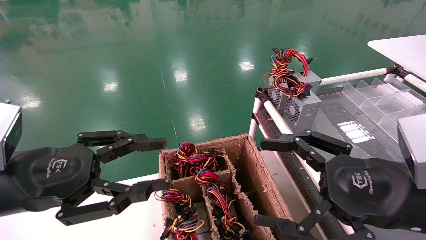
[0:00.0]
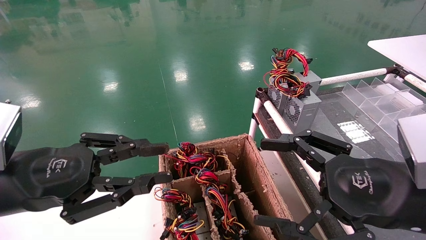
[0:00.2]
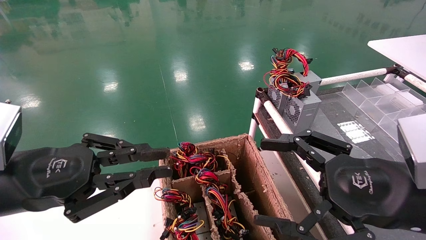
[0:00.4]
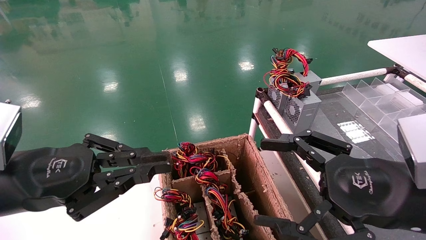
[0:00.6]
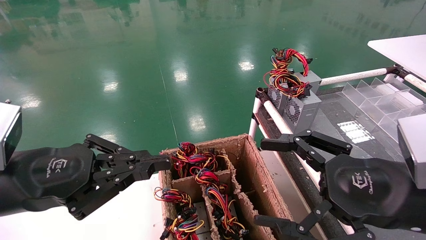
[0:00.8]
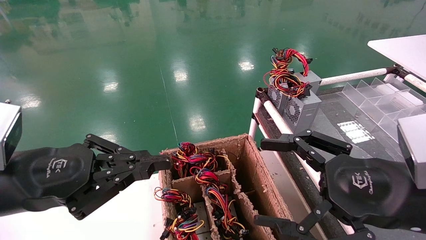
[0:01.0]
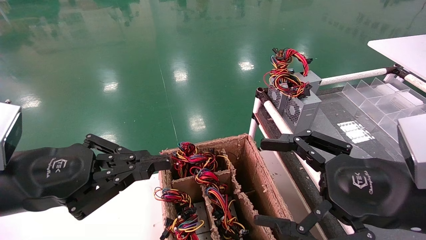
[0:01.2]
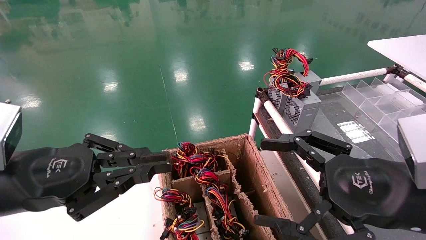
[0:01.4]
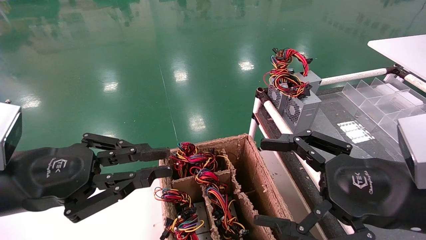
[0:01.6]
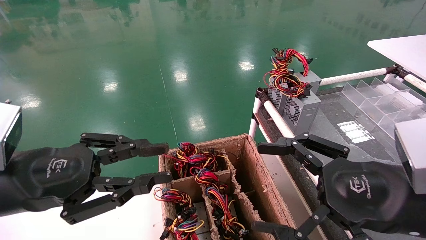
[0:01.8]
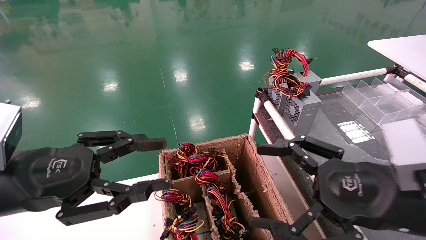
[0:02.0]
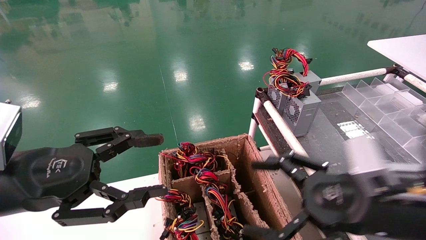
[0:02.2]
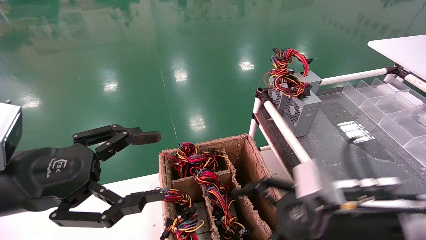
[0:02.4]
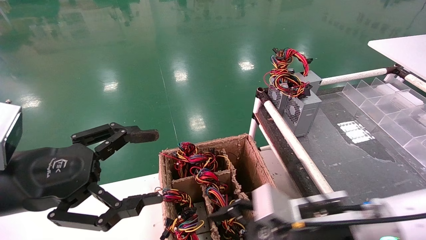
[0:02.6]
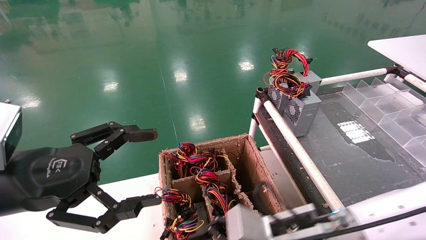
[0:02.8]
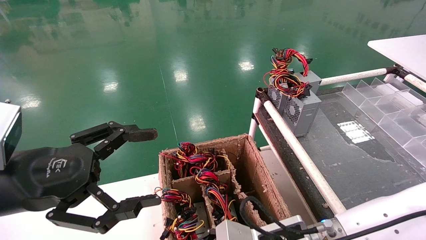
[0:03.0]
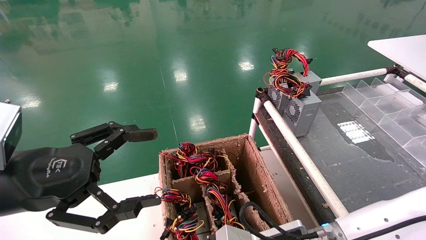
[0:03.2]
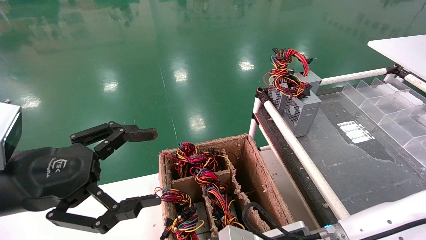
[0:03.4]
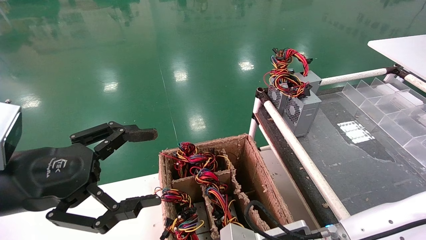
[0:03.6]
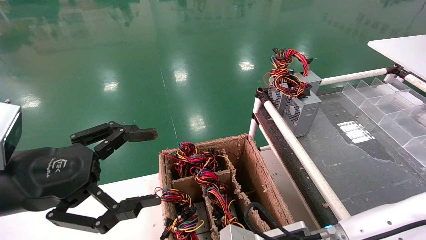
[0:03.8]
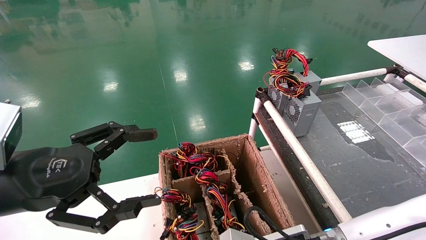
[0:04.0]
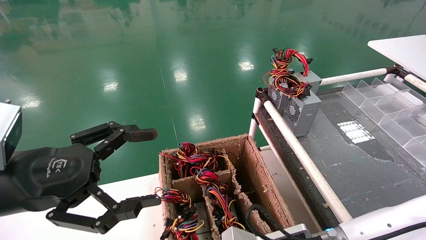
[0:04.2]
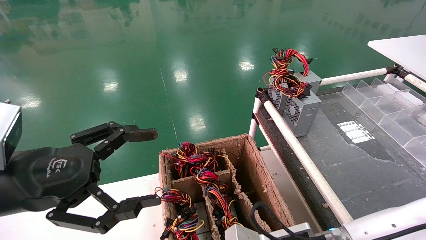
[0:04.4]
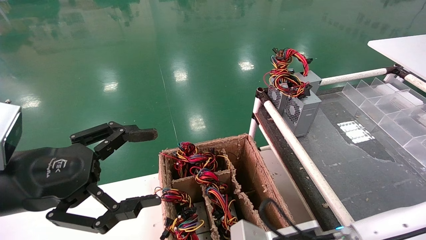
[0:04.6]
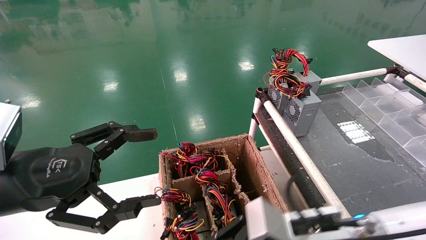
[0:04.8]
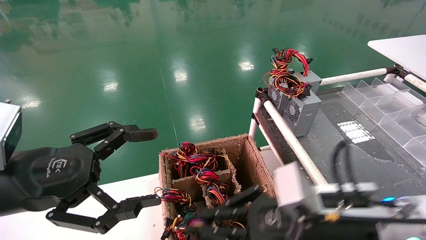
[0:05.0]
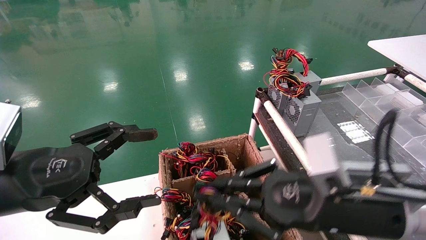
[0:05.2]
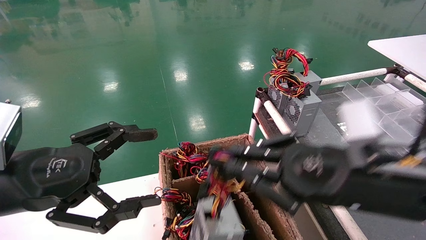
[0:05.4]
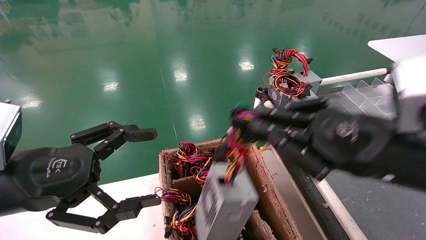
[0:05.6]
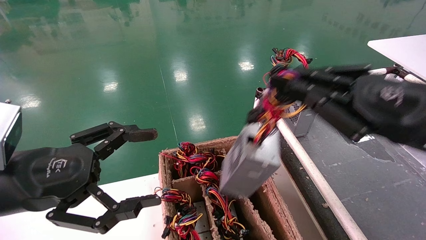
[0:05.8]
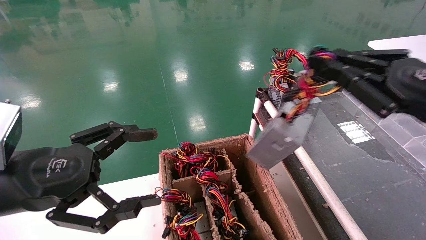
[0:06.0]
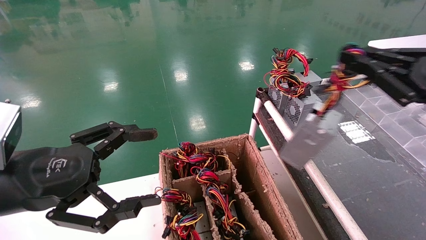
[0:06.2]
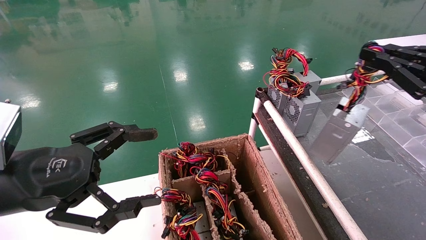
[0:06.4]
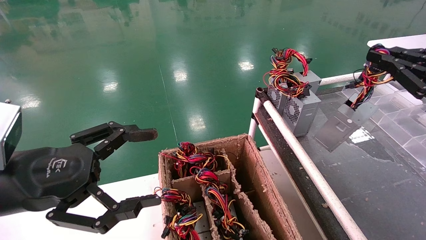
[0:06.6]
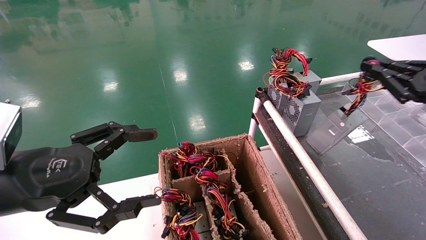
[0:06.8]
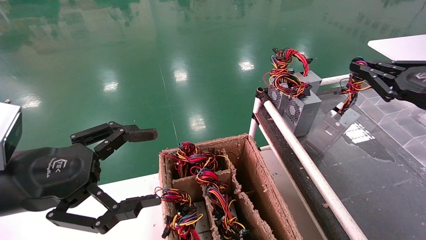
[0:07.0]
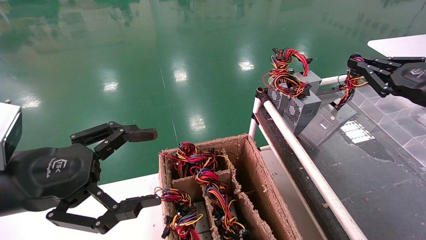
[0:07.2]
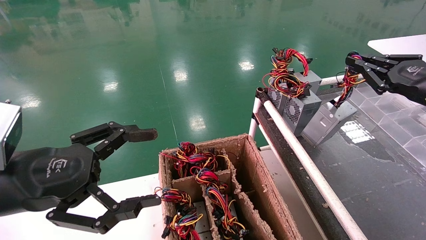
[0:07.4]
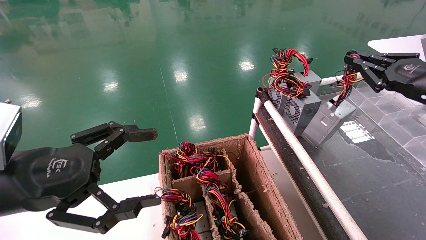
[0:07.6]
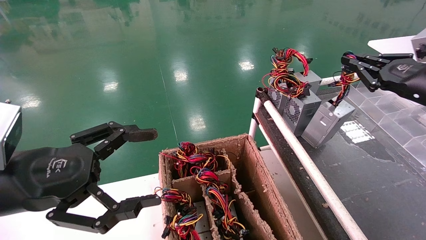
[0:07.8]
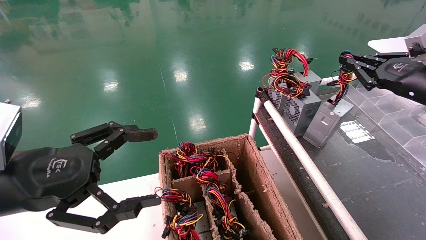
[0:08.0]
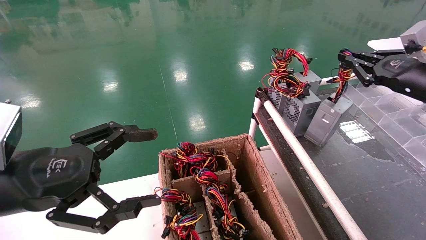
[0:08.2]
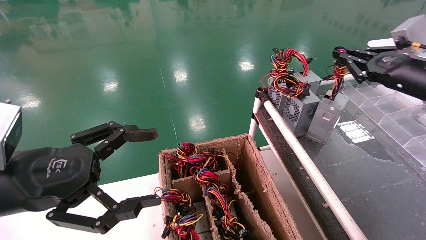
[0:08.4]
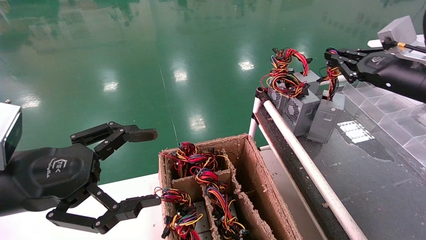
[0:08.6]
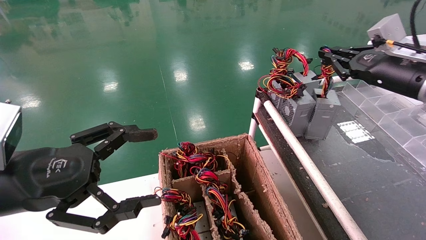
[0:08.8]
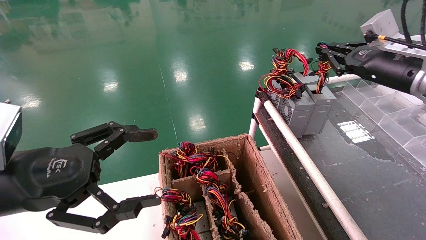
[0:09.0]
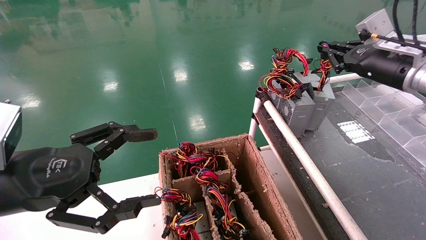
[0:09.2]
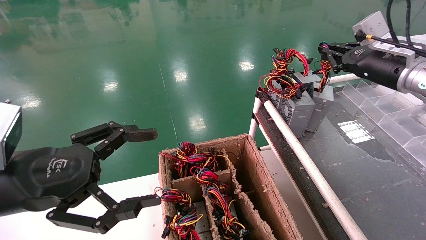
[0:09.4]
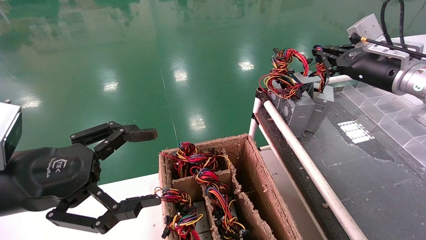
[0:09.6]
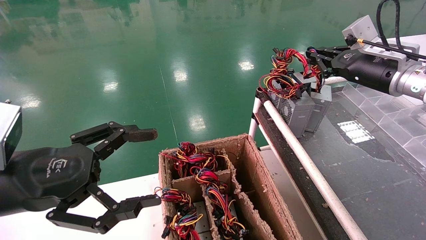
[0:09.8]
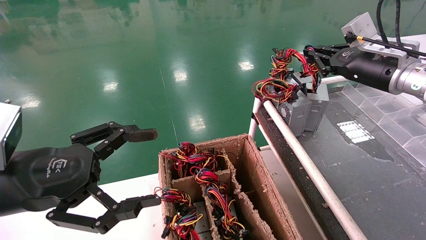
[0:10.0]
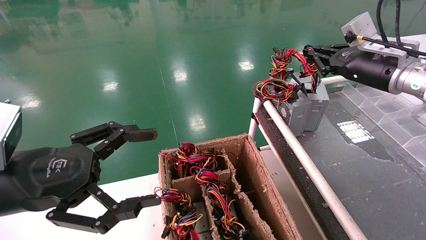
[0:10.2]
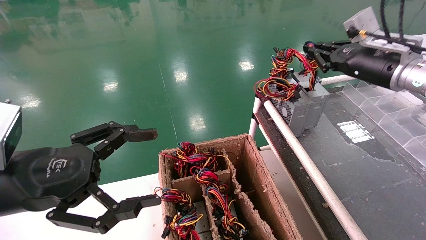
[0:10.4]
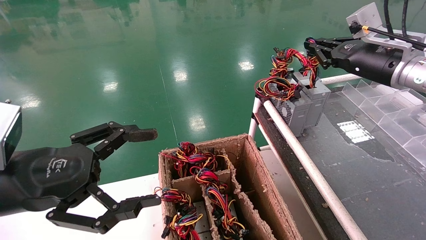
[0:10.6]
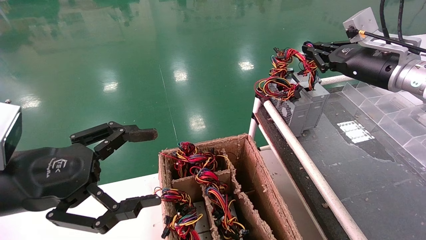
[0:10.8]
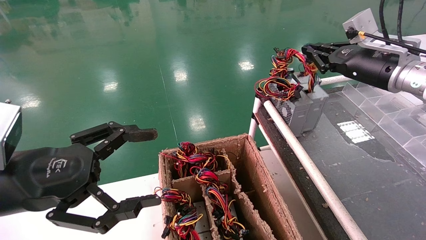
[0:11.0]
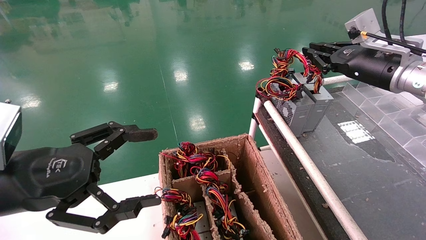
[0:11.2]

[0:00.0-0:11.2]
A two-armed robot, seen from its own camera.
Step, 0:00.8 to 0:04.2: Grab and lift the power supply from the large box.
Step, 0:04.4 to 0:11.2: Place the power supply on the operating table.
0:00.0 to 0:01.6: The left gripper closes its fingers.
0:01.6 to 0:03.2: The right gripper heads to the left and downward, covering some 20 cm, while the left gripper opens its fingers.
0:03.2 to 0:04.8: The right gripper shifts by roughly 5 cm, and closes up.
0:04.8 to 0:06.4: The right gripper travels to the right and upward by about 30 cm.
0:06.4 to 0:08.0: The right gripper goes roughly 10 cm forward.
0:08.0 to 0:09.6: The right gripper goes about 10 cm forward and to the left.
0:09.6 to 0:11.2: The grippers stay close to where they were, moving slightly.

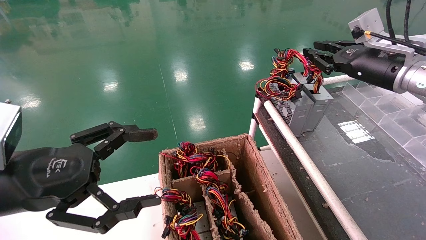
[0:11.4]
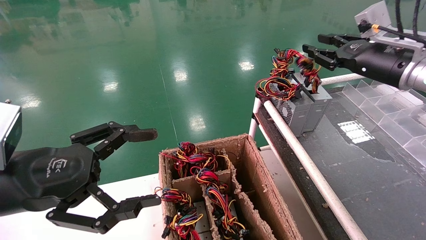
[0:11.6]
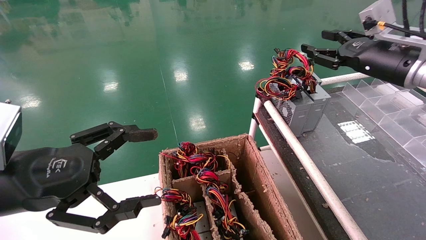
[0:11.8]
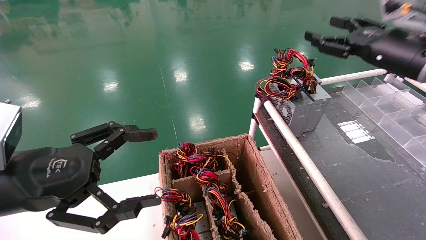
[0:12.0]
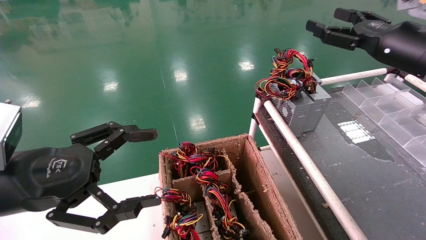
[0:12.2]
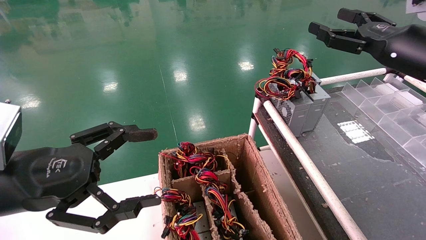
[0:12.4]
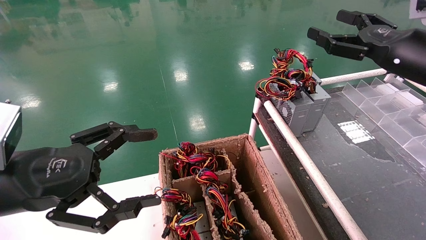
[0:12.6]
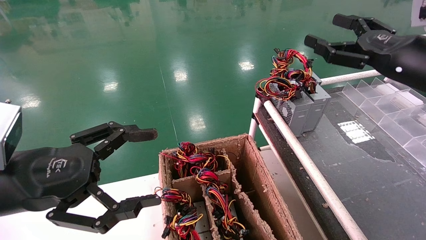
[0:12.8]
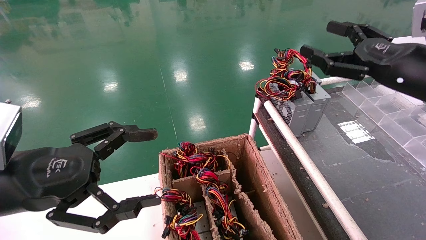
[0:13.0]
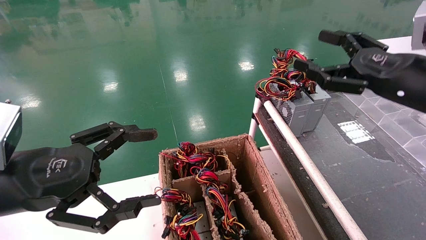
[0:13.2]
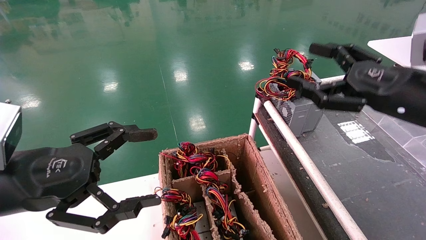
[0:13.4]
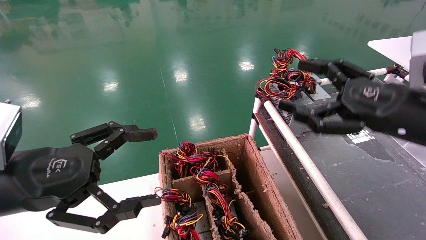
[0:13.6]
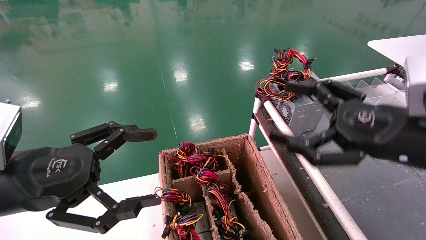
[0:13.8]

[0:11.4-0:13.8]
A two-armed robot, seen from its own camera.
0:11.4 to 0:12.6: The right gripper is displaced backward by some 5 cm, and opens up.
0:12.6 to 0:13.8: The right gripper heads backward, downward and to the left, covering about 15 cm.
